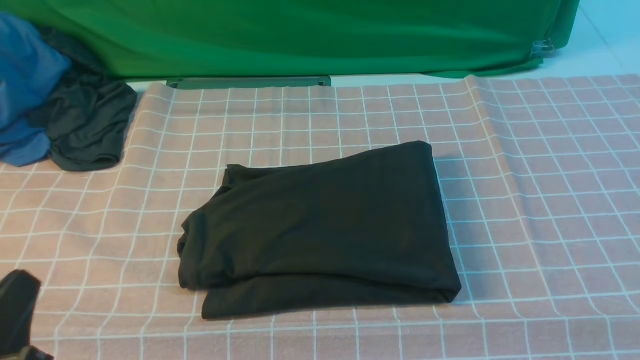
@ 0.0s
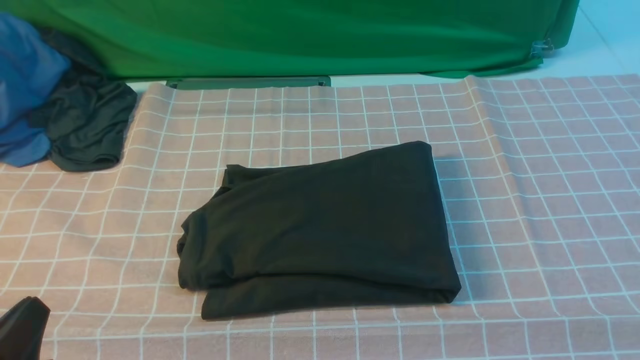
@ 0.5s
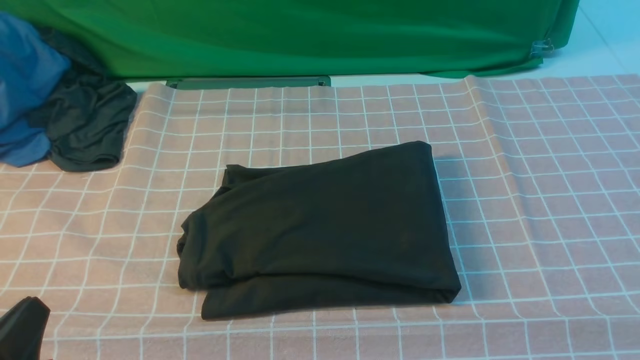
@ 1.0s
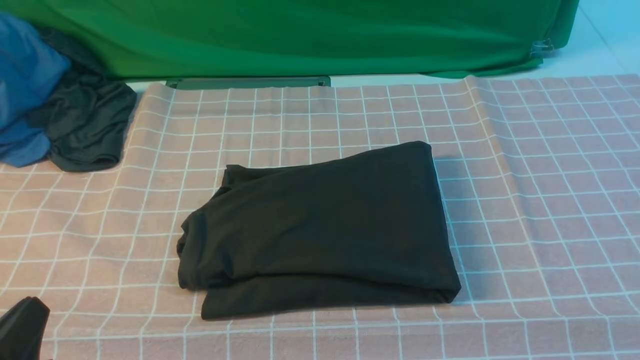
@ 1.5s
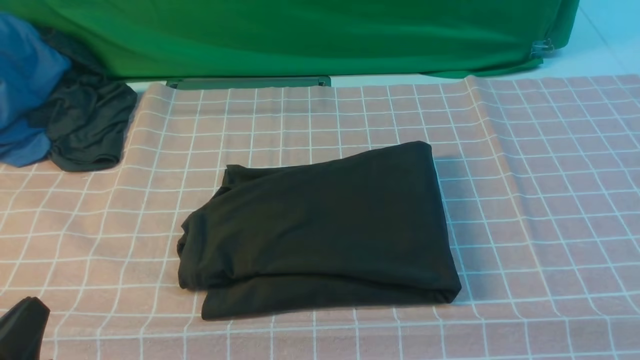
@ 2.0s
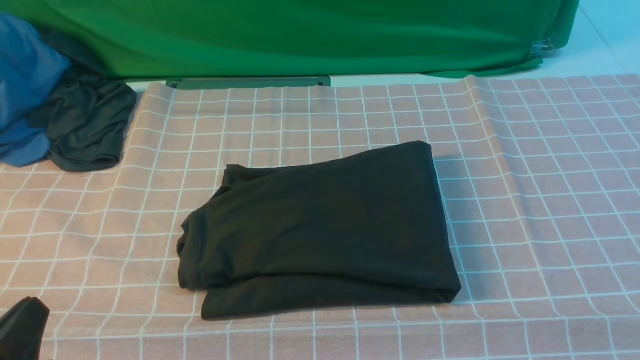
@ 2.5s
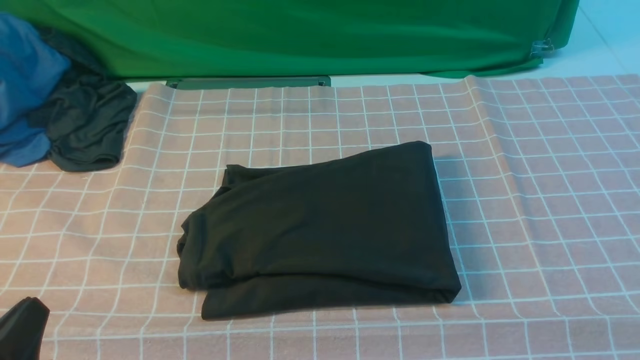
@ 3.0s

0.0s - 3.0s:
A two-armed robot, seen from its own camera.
0.0s - 1.5s: The grippers move only a little.

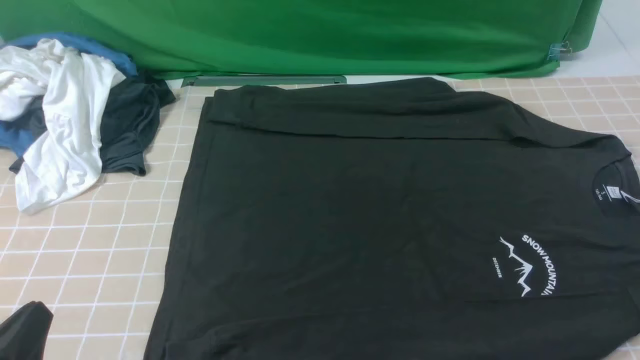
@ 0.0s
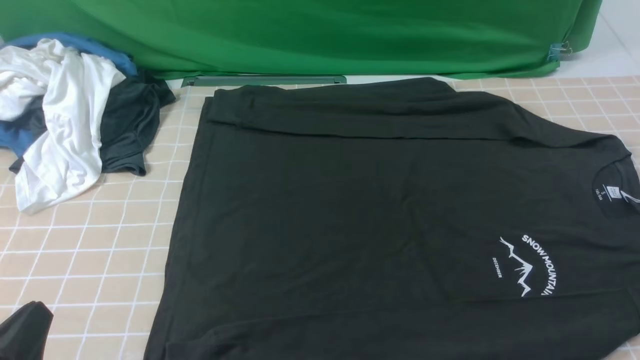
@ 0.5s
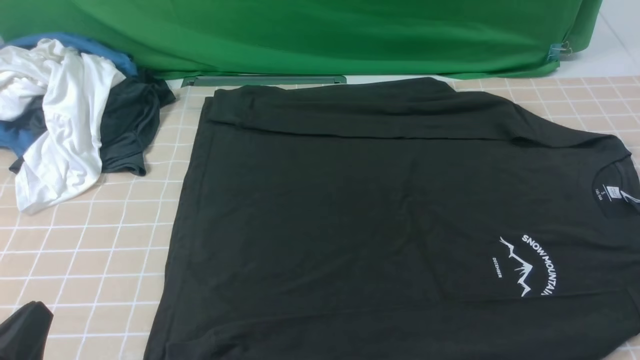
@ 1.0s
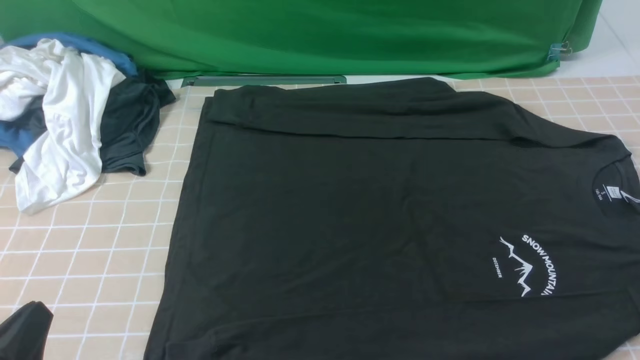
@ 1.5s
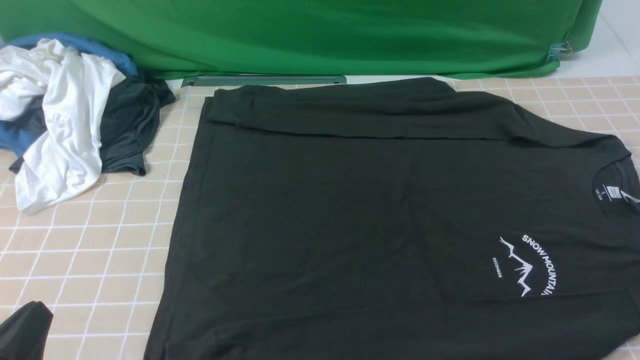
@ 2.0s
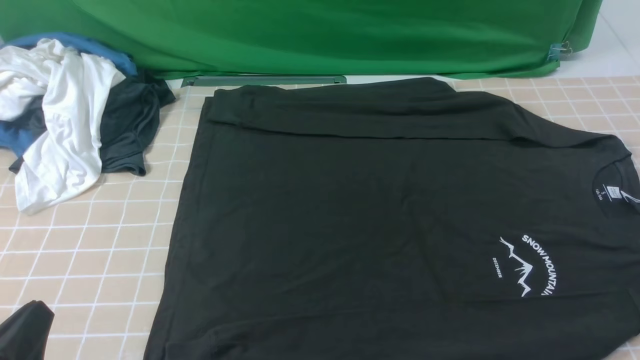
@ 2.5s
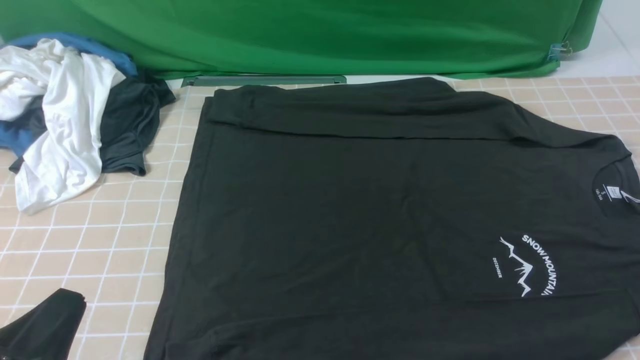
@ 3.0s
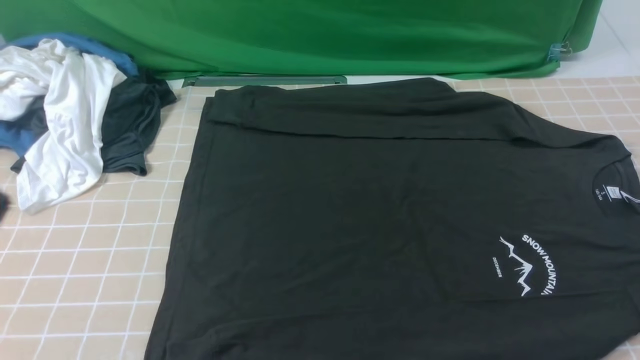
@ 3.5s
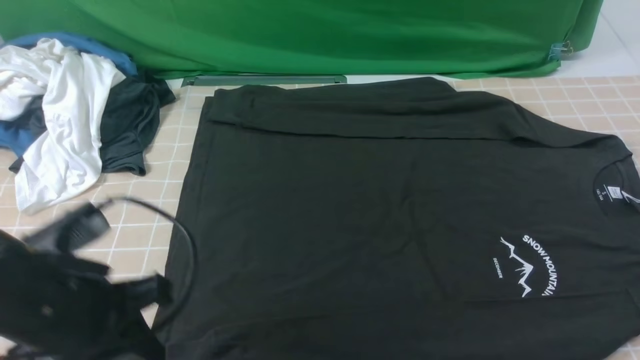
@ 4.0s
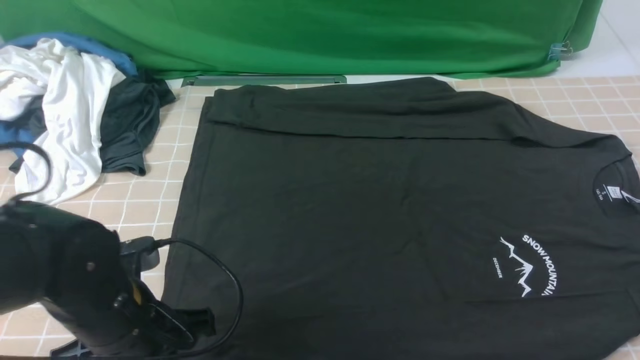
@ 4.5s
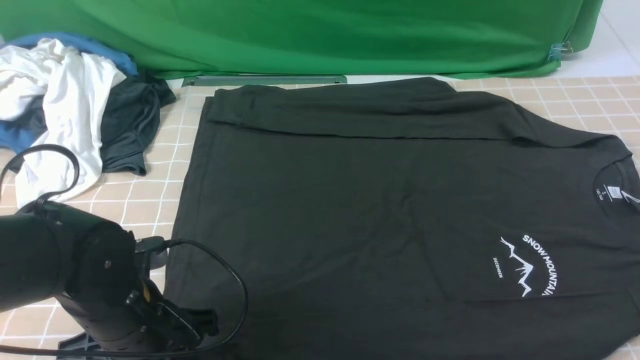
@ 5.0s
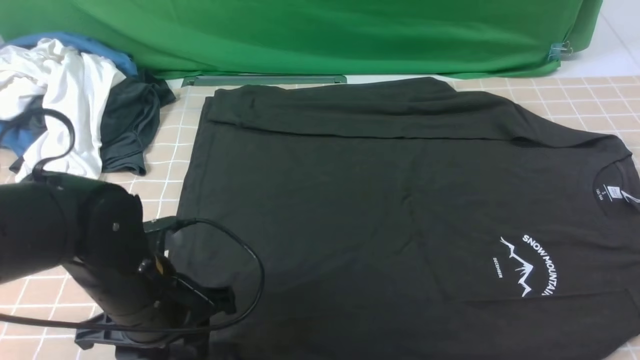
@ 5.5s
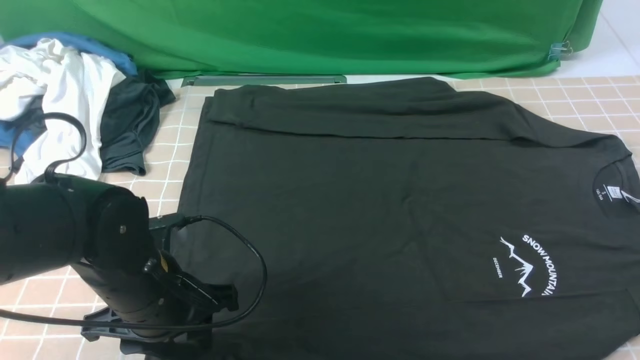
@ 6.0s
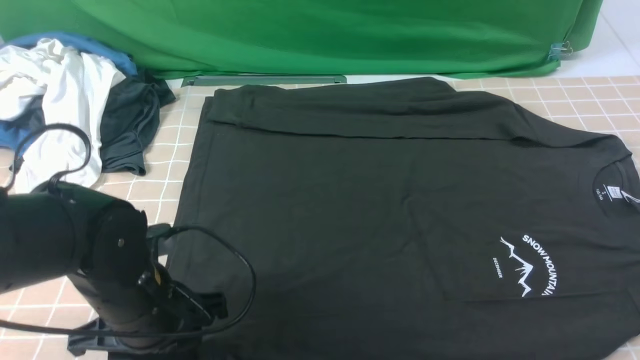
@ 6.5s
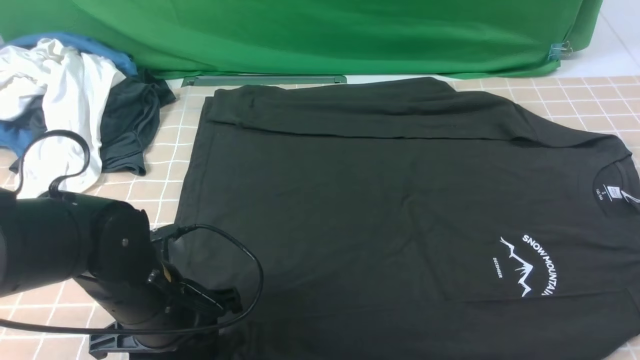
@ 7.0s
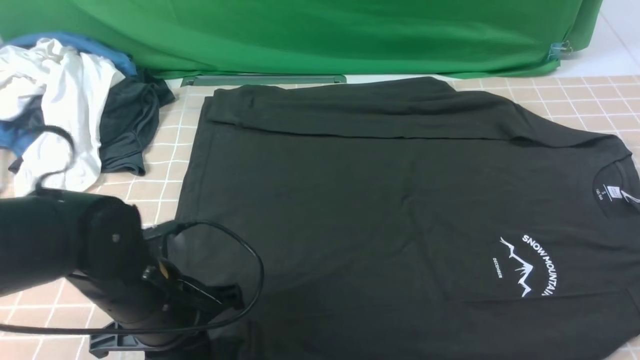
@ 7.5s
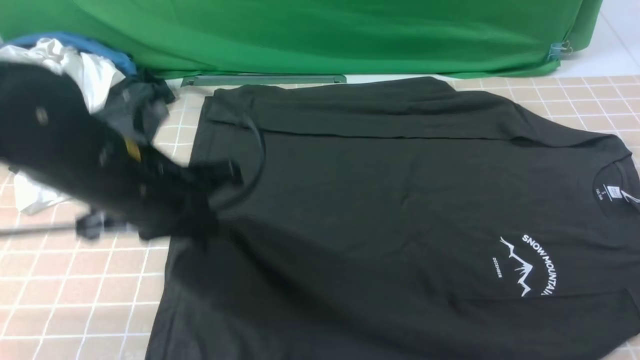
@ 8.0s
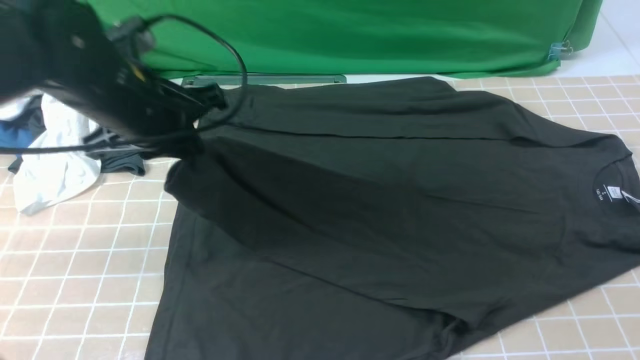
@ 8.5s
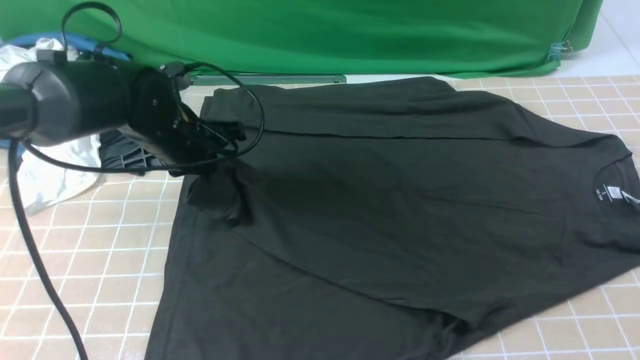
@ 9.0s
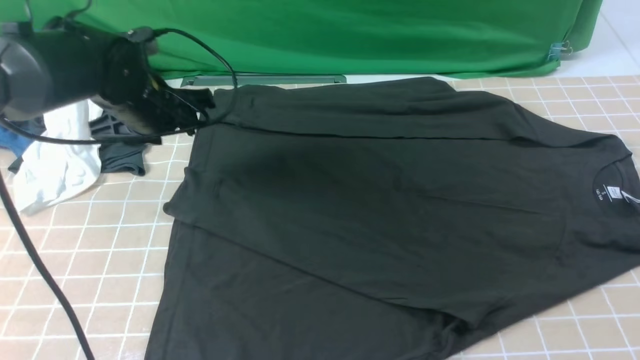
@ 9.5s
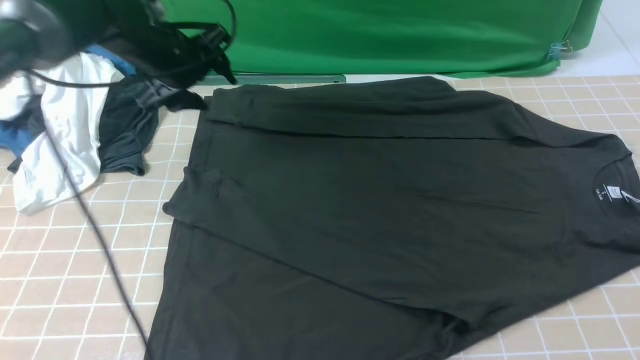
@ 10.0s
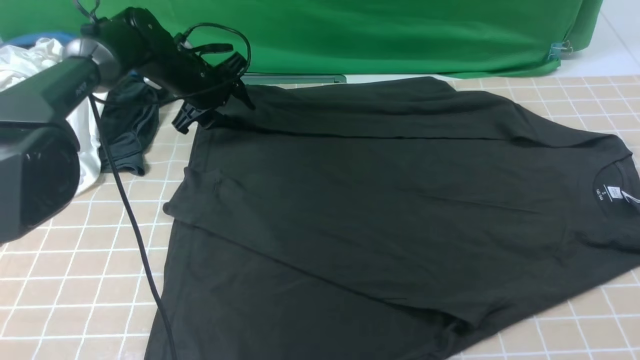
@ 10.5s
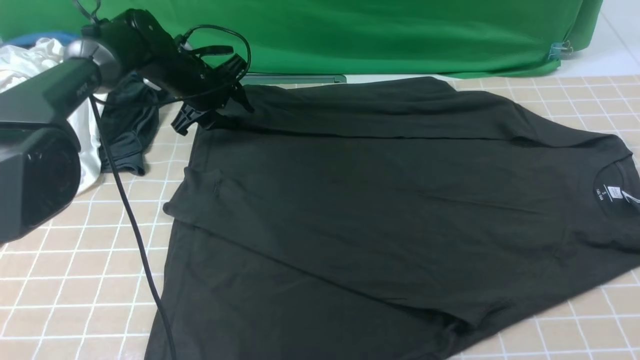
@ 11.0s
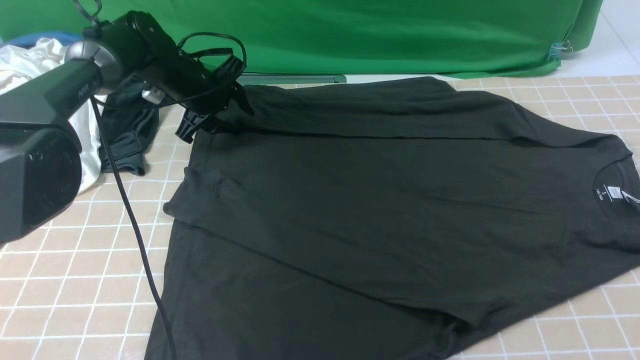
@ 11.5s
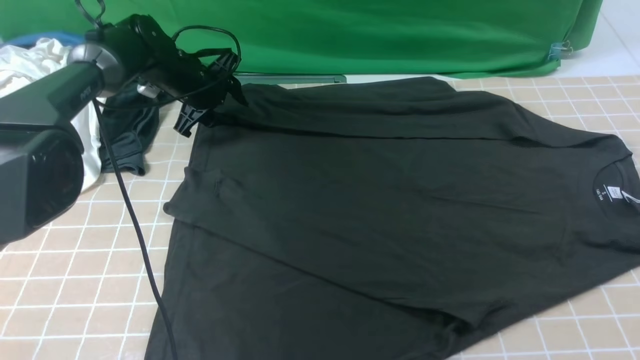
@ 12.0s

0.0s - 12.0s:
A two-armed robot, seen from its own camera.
Step, 0.0s - 7.0s: use the left arm to clamp the cuff closest to it.
Step, 7.5s - 9.0s: use the left arm to drag and place the cuff at the centered position on the left edge of the fabric.
0.0s - 2.0s: The two grippers keep their place.
2.0s - 4.0s: The left gripper is displaced forward, upward and to the right by about 15 cm.
4.0s - 6.0s: The left gripper heads downward, covering some 10 cm, and opens.
6.0s - 8.0s: The left gripper travels upward by some 10 cm, and closes up.
8.0s - 10.0s: The left gripper is displaced forward by roughly 25 cm, and opens.
10.0s - 12.0s: The left gripper moves downward and forward, about 10 cm, and closes its fingers.

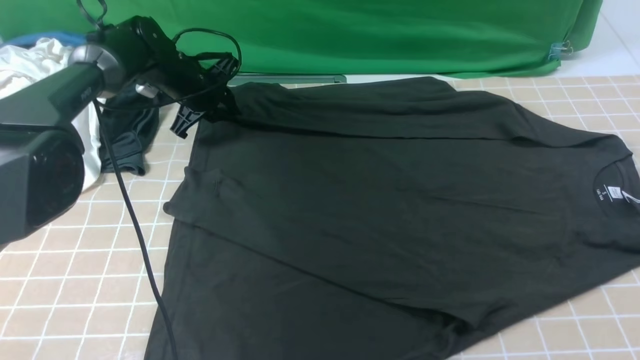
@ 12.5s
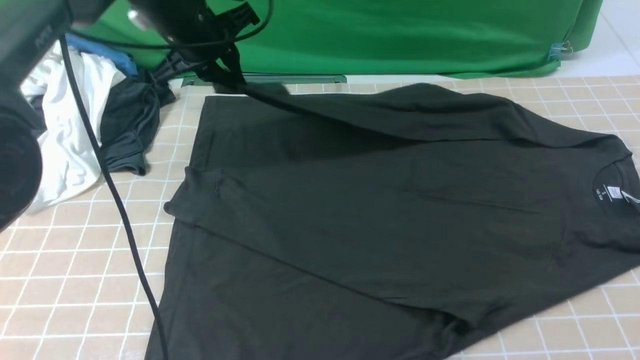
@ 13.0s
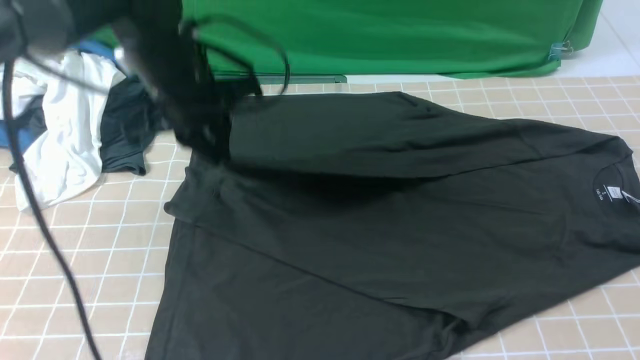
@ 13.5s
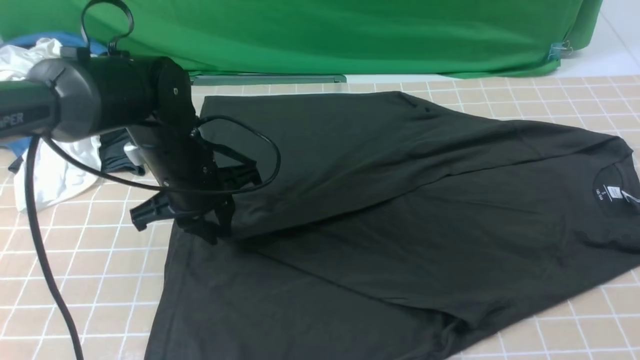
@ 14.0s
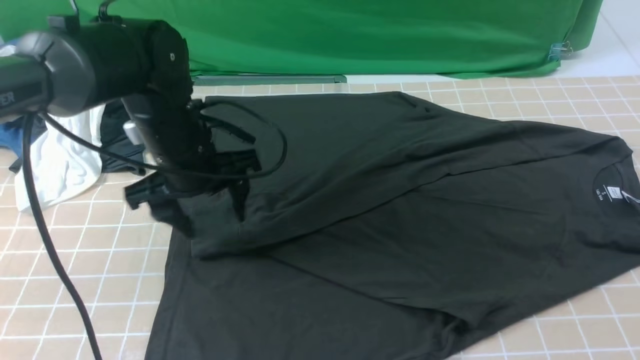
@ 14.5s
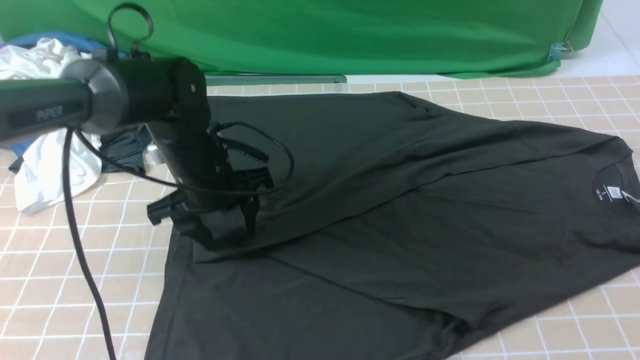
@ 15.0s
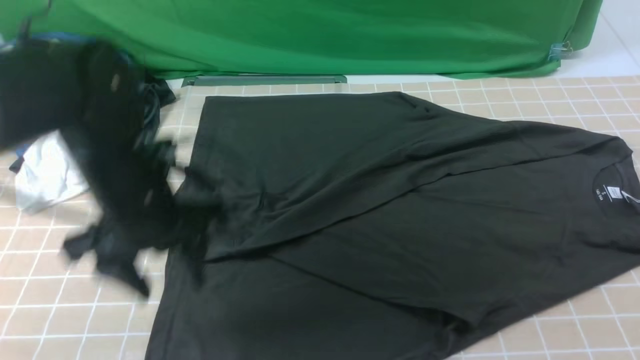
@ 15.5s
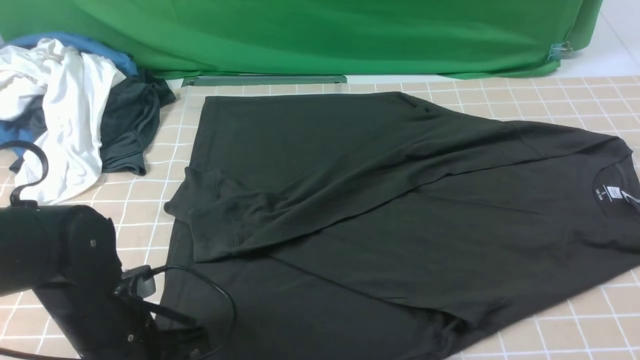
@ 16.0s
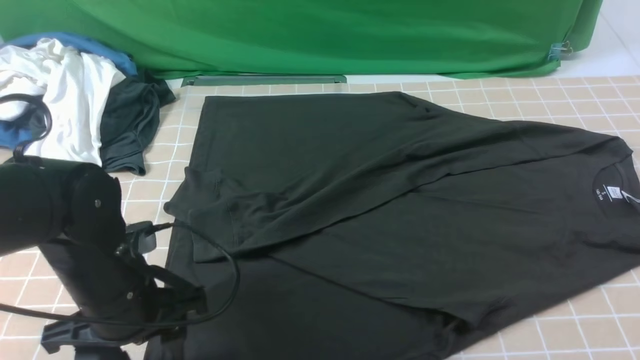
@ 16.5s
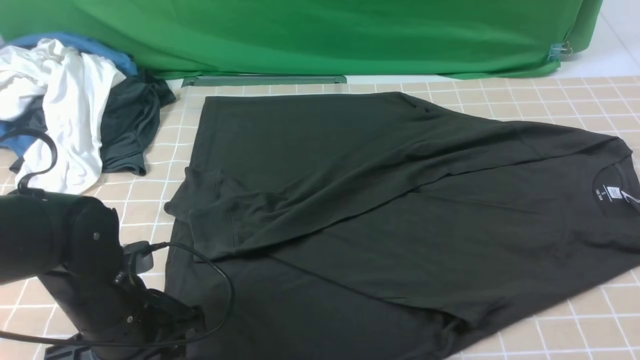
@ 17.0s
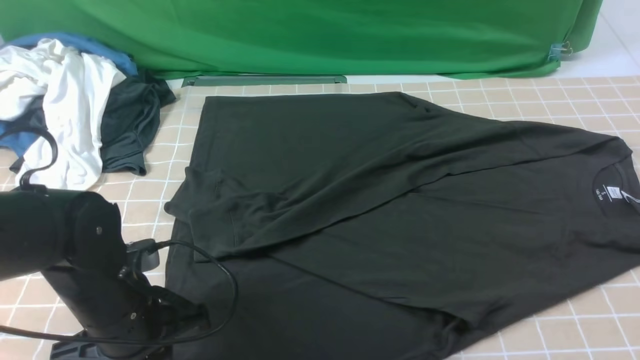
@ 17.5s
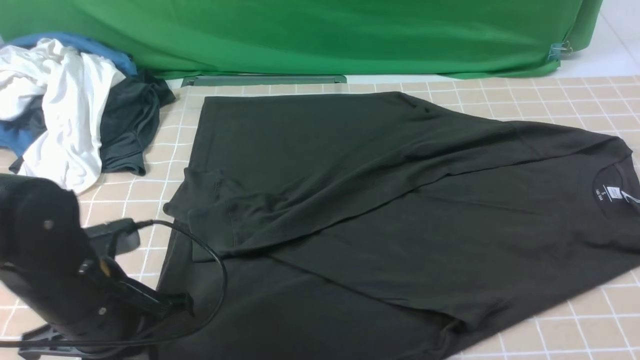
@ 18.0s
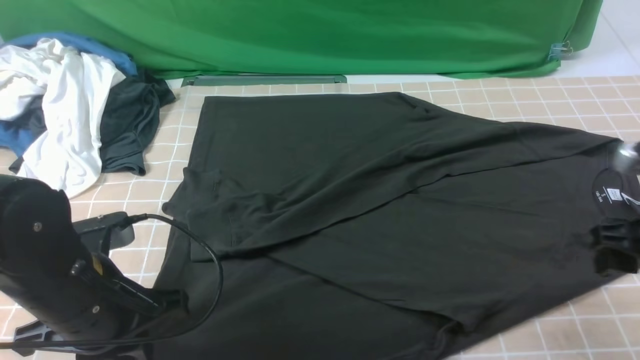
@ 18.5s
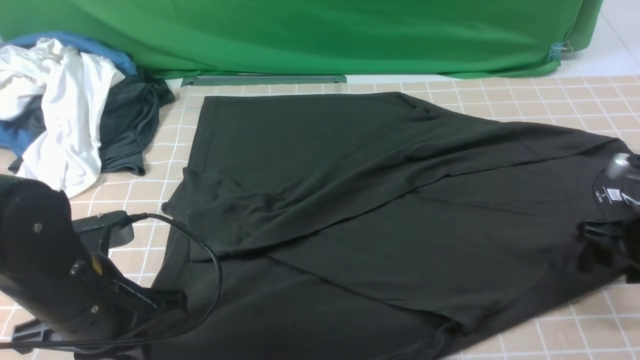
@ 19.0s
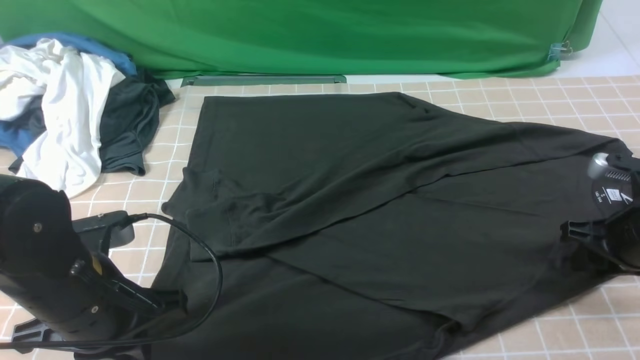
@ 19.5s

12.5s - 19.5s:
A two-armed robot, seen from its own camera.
Step, 13.0s - 14.0s: use the left arm to drag and drop the cuff onto the cuff closest to the left arm.
12.5s - 14.5s: The left gripper goes about 20 cm backward, and opens.
14.5s - 16.0s: The left gripper shifts about 15 cm backward.
16.0s - 17.5s: The left gripper closes its fingers.
17.5s - 19.5s: The left gripper heads upward, covering about 5 cm; the right gripper moves downward and forward, about 30 cm, and opens, then closes again.
